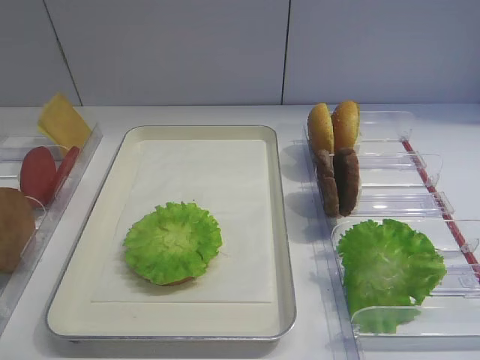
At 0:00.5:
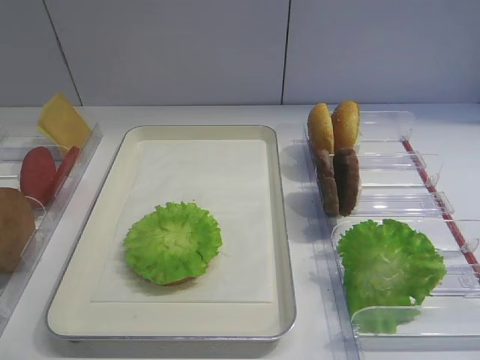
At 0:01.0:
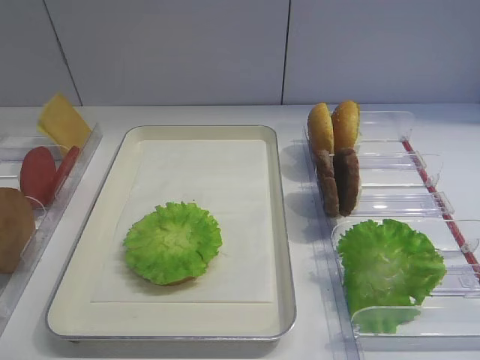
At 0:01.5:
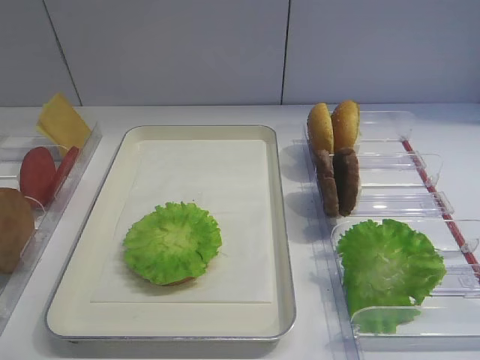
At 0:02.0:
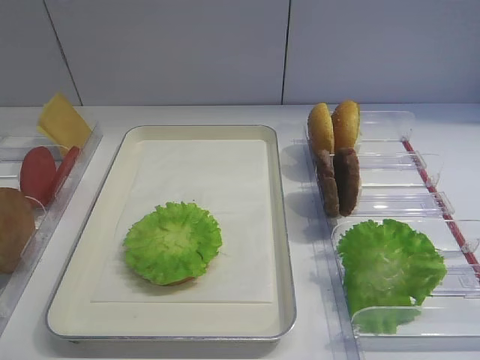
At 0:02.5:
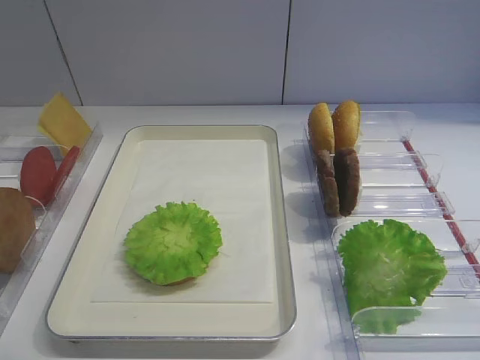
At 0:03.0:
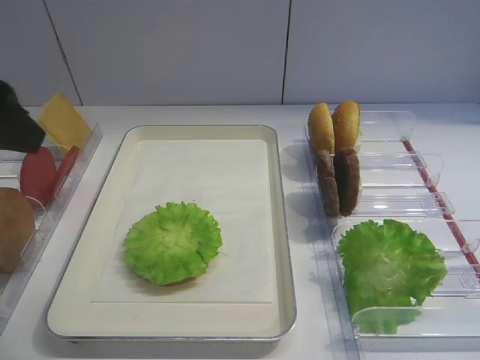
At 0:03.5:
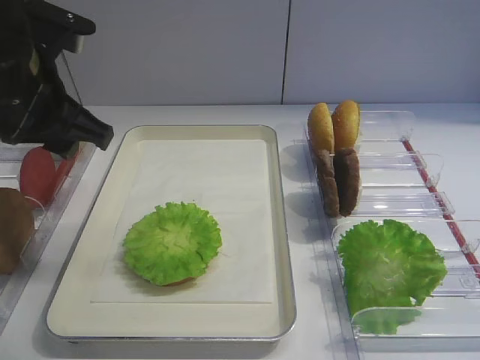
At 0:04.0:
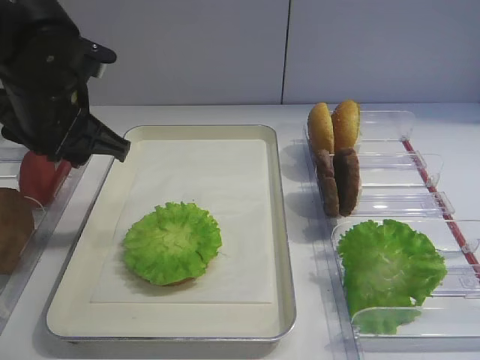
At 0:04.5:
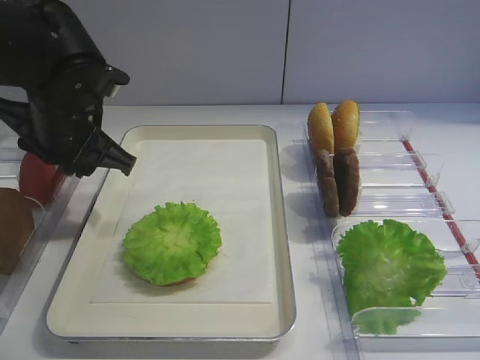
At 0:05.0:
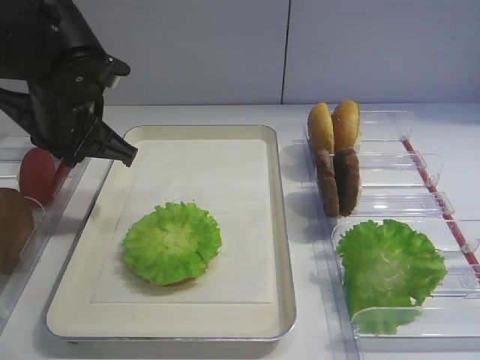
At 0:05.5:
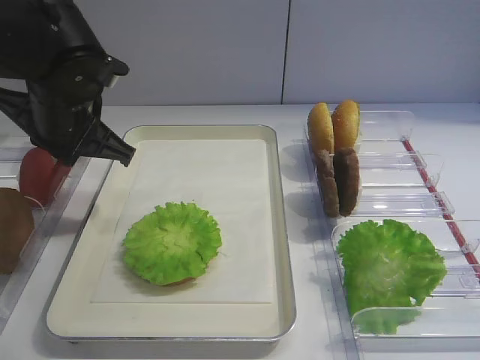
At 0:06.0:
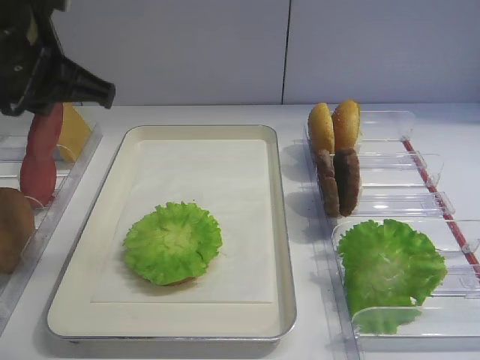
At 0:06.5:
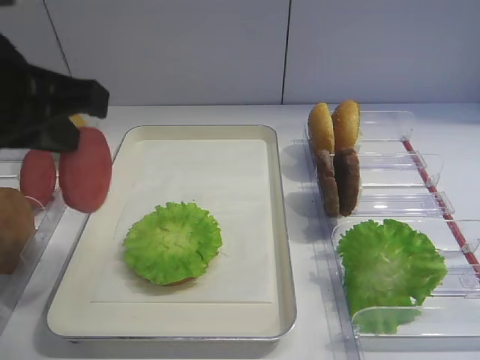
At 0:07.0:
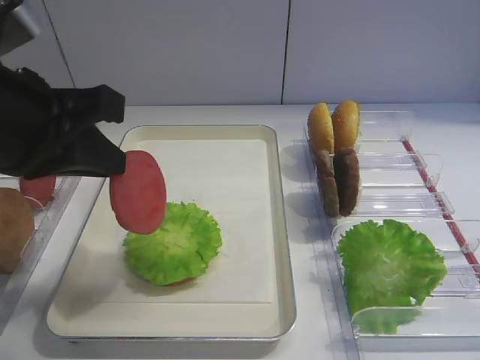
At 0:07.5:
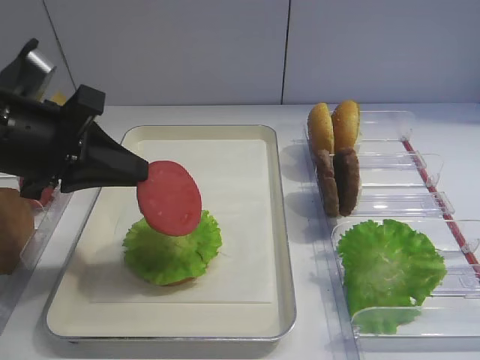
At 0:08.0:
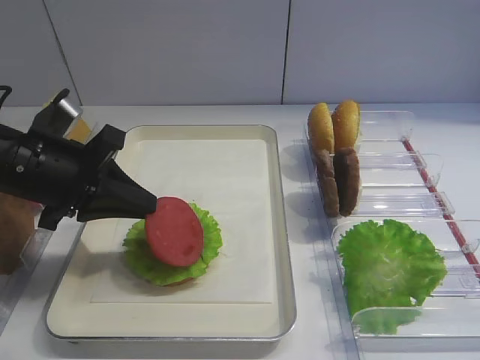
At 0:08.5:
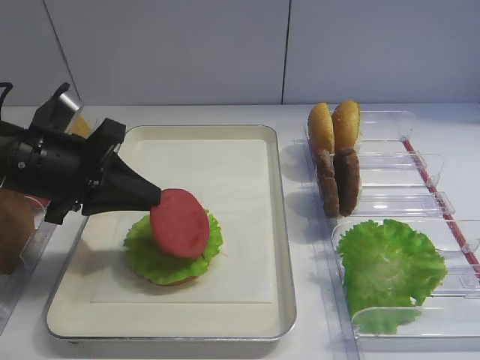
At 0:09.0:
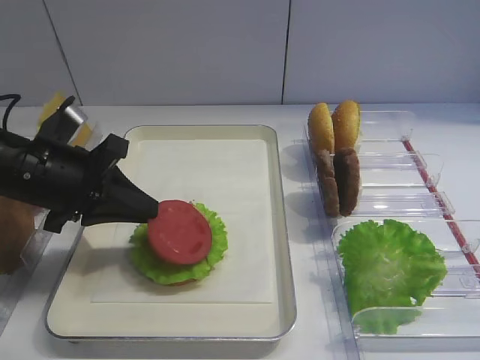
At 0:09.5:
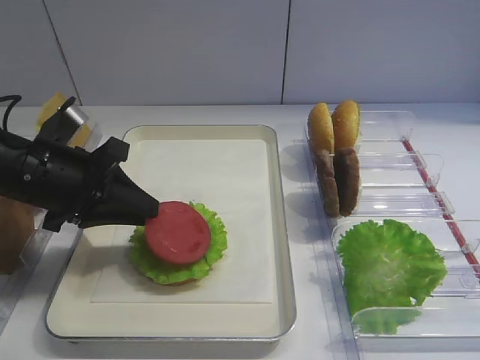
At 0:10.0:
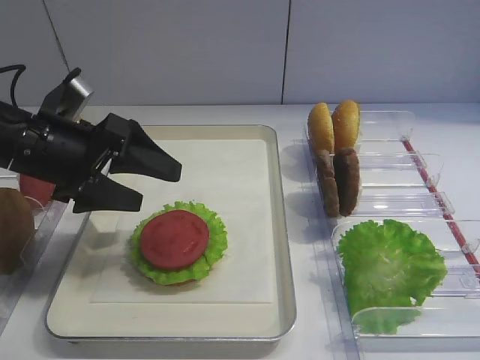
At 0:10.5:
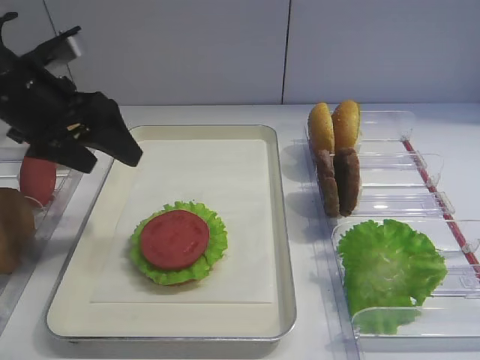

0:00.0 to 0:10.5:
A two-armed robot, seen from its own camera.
Step, 0:00.0 to 0:05.5: Pick up the tomato slice with the left gripper.
Step, 0:06.0 to 0:09.5: Place the tomato slice on the lettuce leaf with the left gripper.
0:02.0 to 0:04.0: The left gripper shifts about 30 cm forward.
0:04.0 to 0:06.5: The left gripper travels backward and upward by some 15 cm, and closes its fingers.
0:06.5 to 0:08.5: The left gripper travels downward and forward by roughly 15 cm.
0:08.5 to 0:10.5: The left gripper goes about 5 cm upward and forward, and opens its fingers.

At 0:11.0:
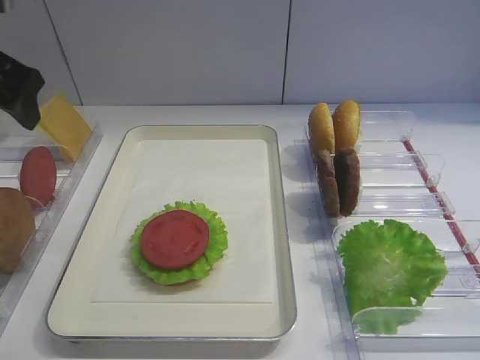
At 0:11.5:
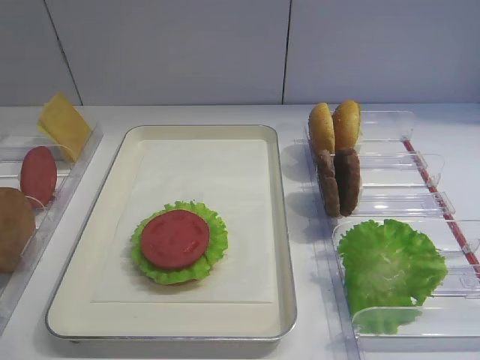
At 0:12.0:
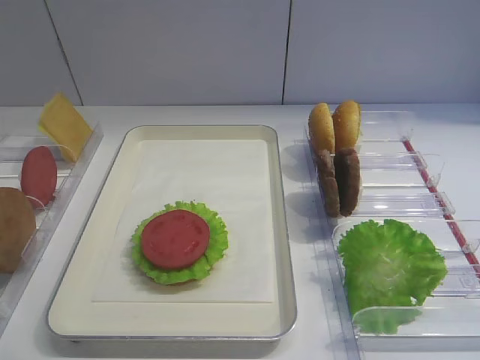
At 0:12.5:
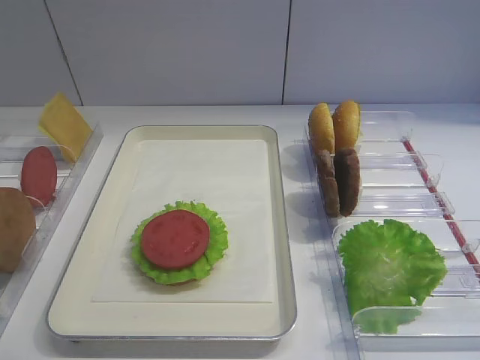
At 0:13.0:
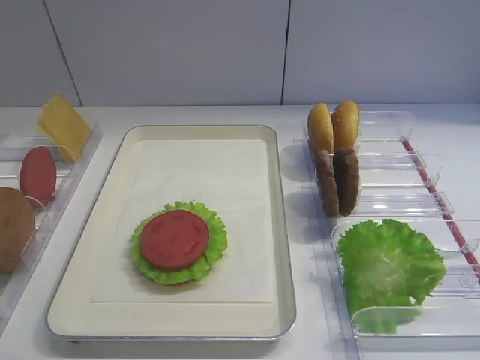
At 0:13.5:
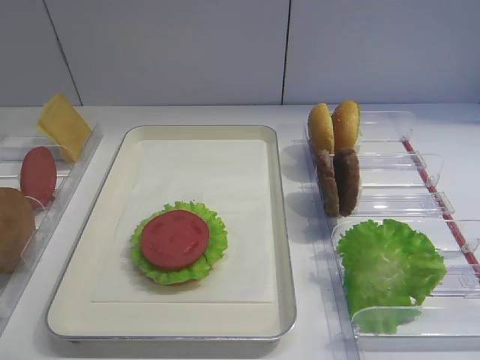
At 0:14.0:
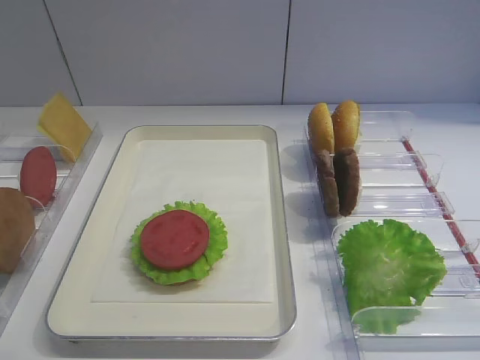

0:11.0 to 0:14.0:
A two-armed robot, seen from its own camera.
0:11.0 to 0:12.5: The left gripper heads backward, covering approximately 35 cm.
0:12.5 to 0:14.0: The two grippers keep their place.

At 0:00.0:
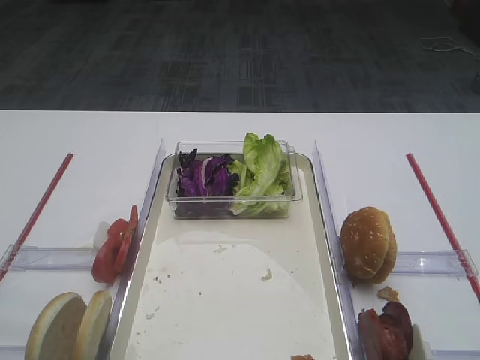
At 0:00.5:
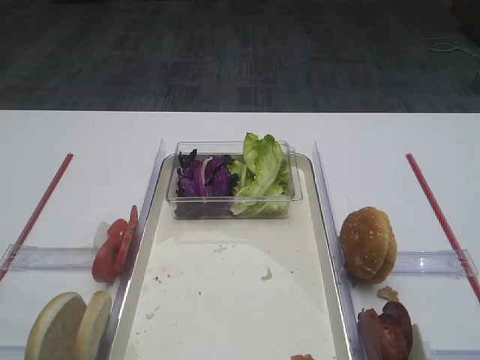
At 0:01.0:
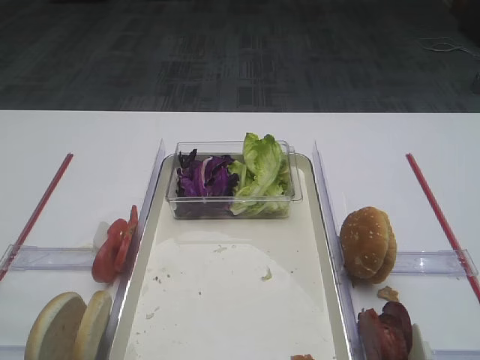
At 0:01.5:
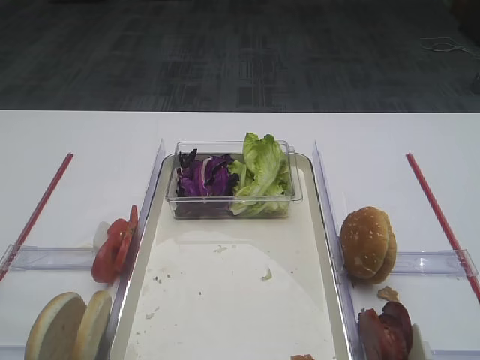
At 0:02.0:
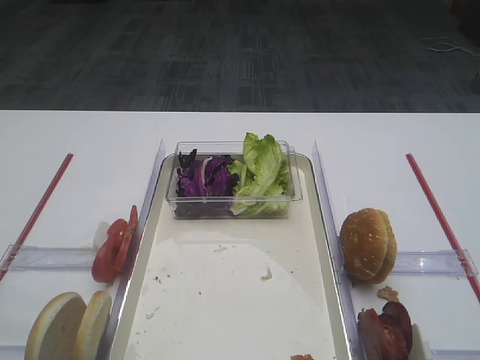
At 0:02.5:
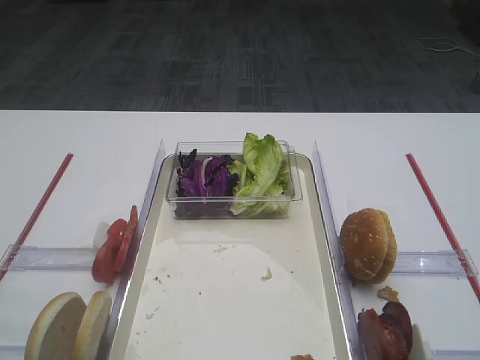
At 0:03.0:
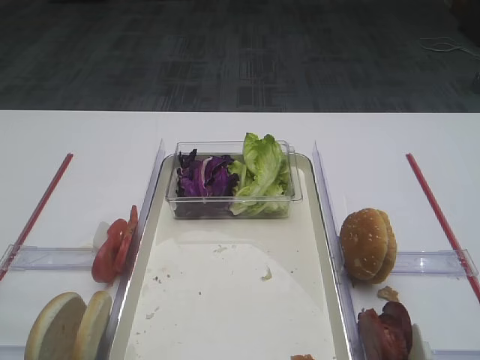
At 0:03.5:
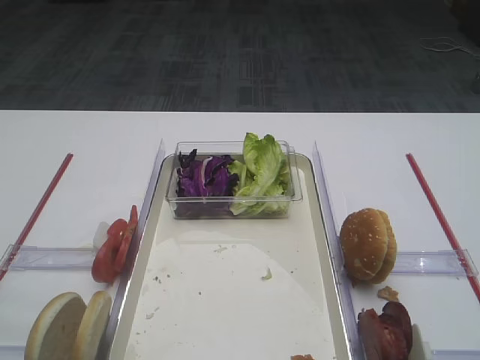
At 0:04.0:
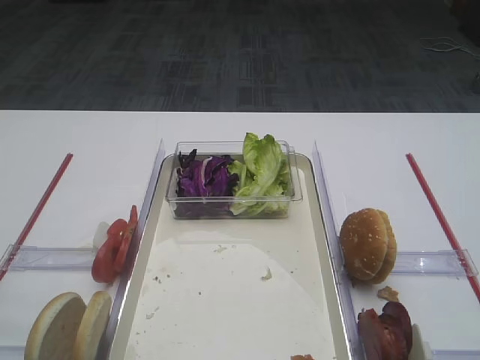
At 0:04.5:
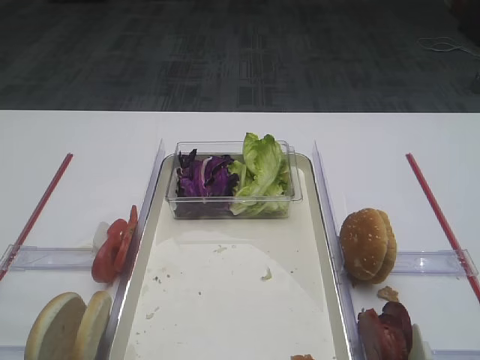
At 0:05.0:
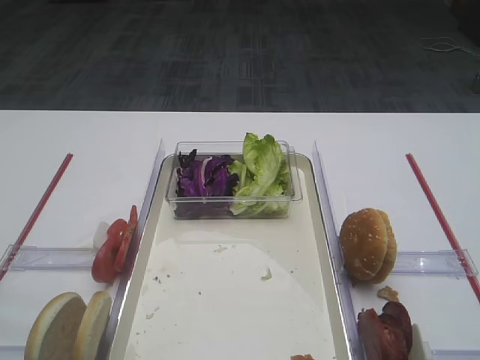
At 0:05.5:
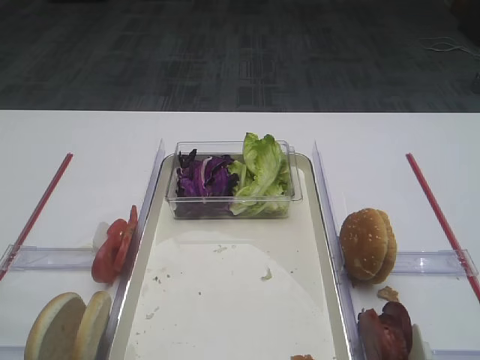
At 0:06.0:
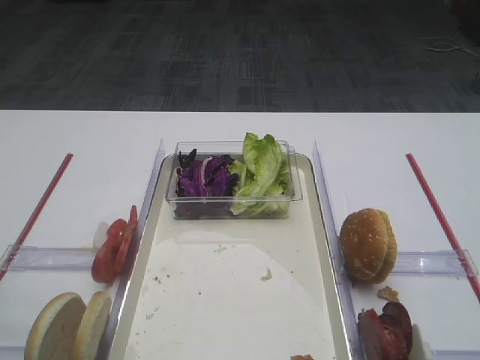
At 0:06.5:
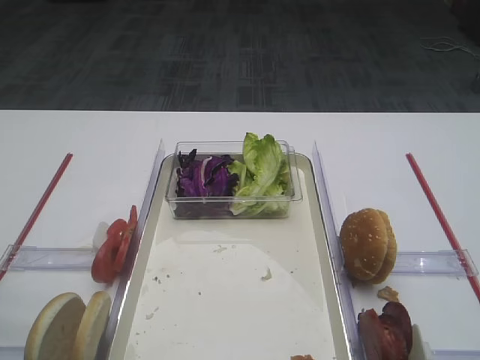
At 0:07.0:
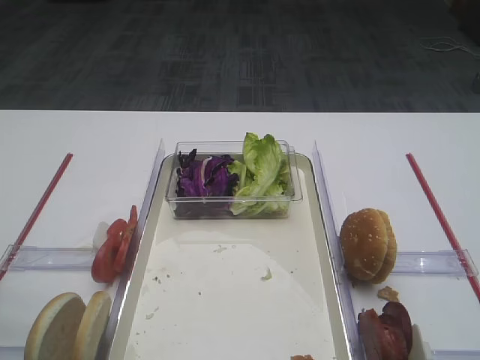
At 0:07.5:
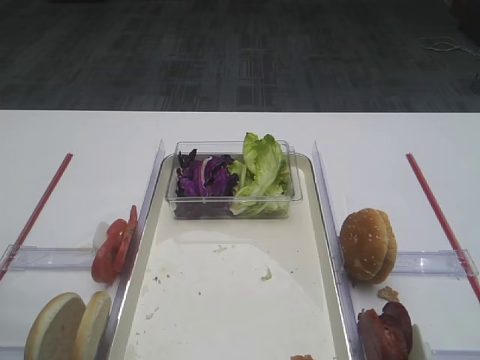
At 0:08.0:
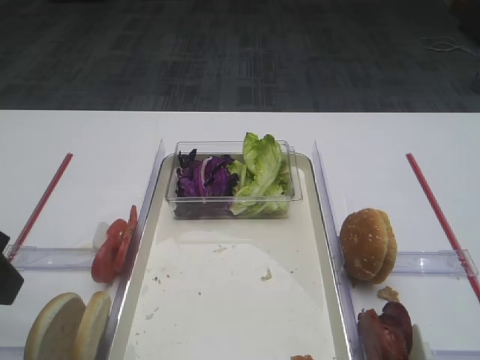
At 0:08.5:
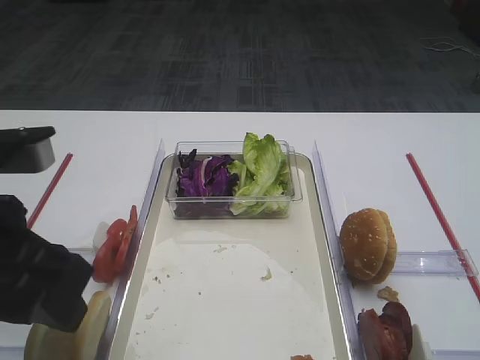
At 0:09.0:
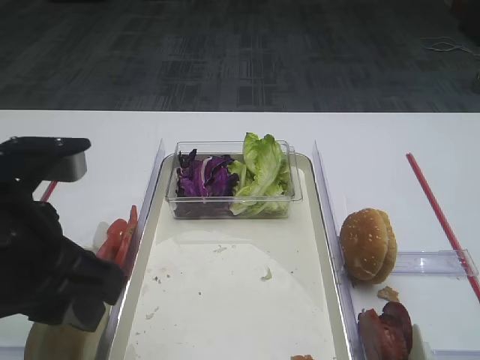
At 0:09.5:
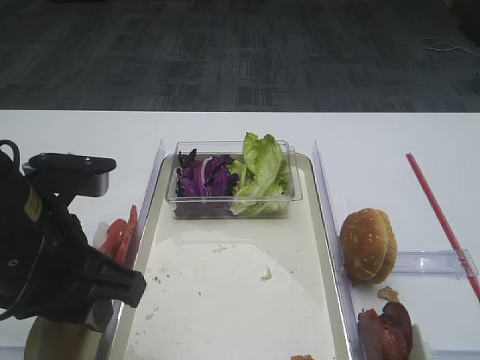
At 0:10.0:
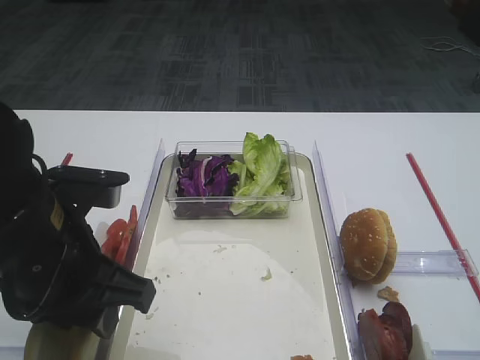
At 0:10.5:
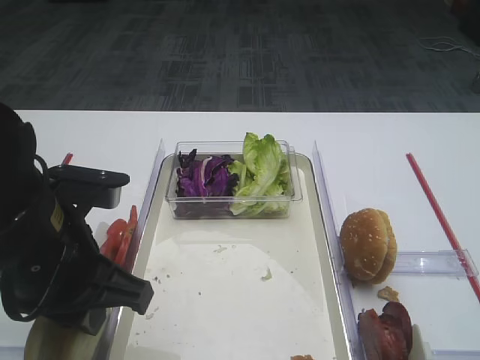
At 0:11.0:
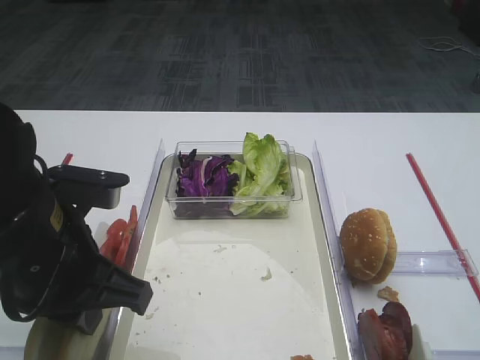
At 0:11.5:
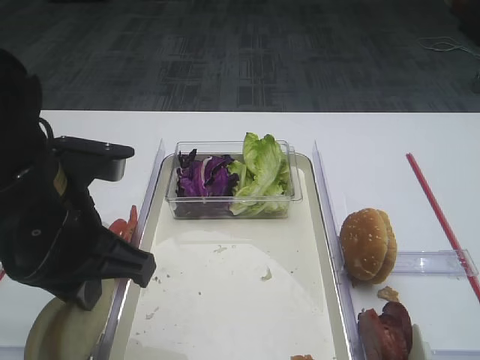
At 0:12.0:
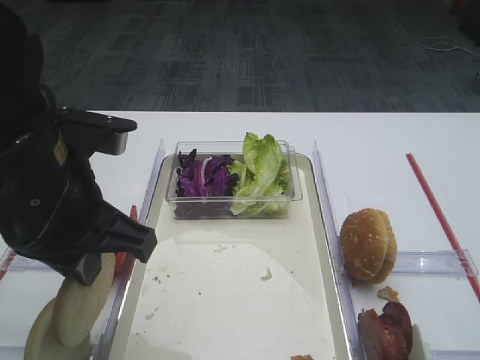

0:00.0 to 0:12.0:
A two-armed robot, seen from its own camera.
Step, 0:00.0 to 0:11.5: Pick up the bread slice with the left gripper.
0:02.0 to 0:04.0: Both grippers stay about where they are.
0:06.0 to 0:08.0: The left gripper goes approximately 5 cm forward.
0:08.0 to 0:10.0: The left gripper is displaced to the right and downward by roughly 10 cm.
0:10.0 to 0:12.0: The left gripper shifts by some 5 cm, and closes.
